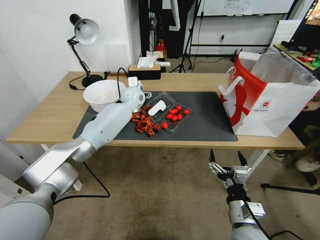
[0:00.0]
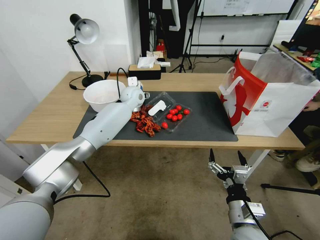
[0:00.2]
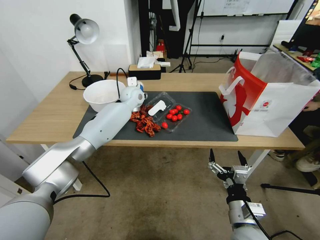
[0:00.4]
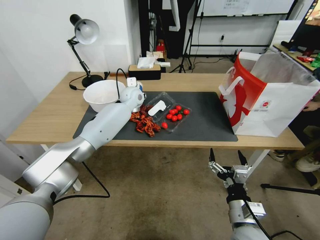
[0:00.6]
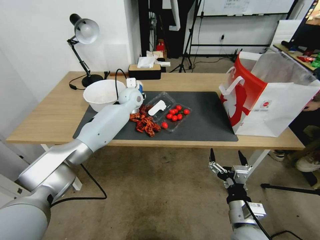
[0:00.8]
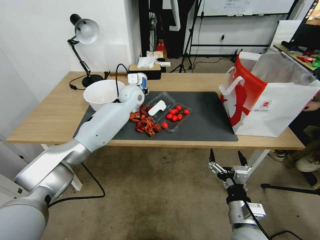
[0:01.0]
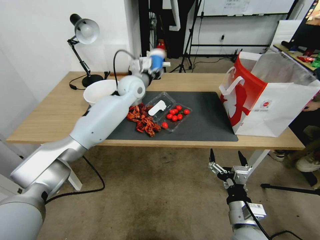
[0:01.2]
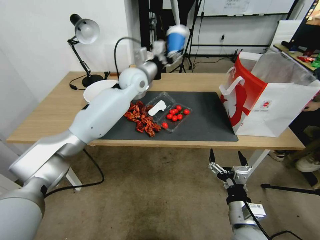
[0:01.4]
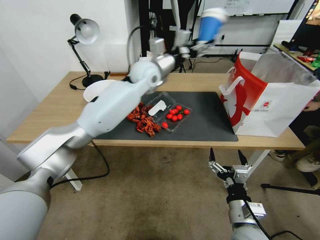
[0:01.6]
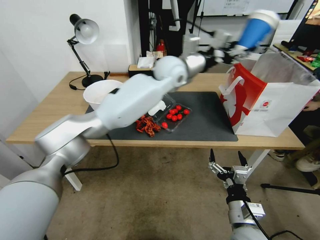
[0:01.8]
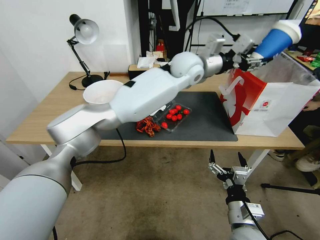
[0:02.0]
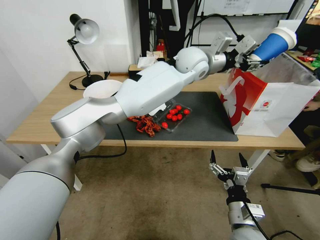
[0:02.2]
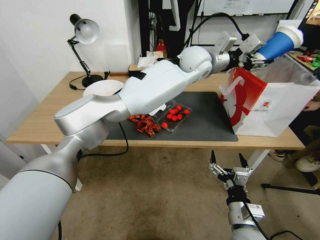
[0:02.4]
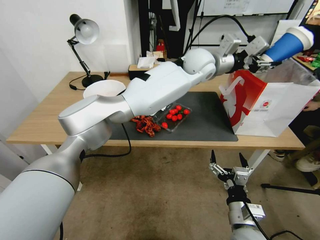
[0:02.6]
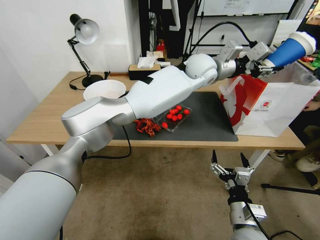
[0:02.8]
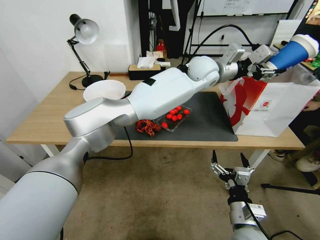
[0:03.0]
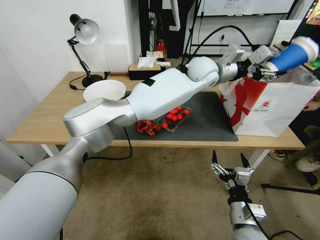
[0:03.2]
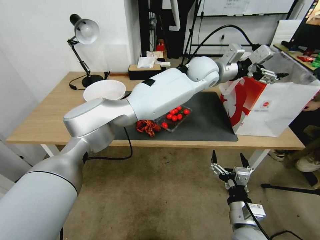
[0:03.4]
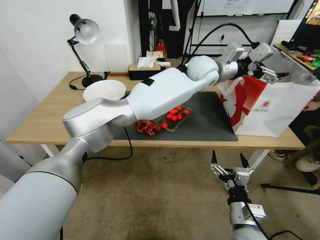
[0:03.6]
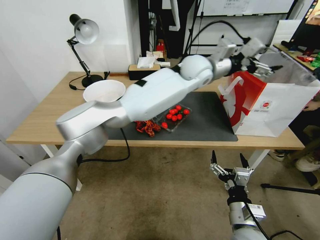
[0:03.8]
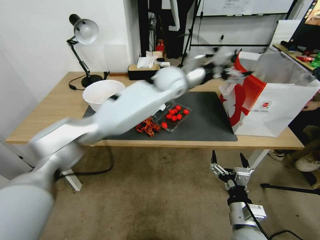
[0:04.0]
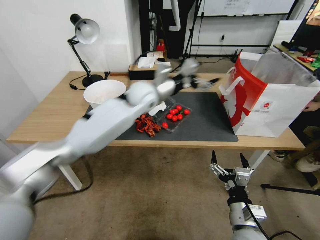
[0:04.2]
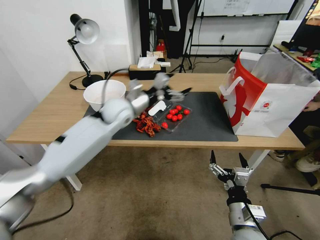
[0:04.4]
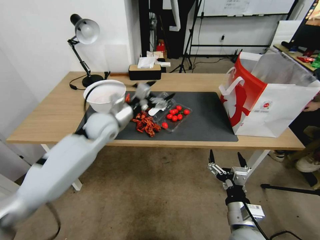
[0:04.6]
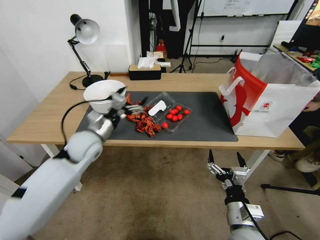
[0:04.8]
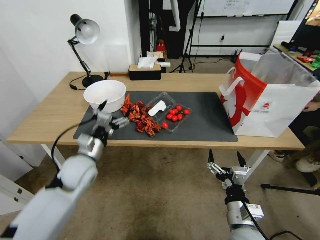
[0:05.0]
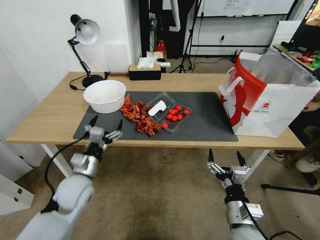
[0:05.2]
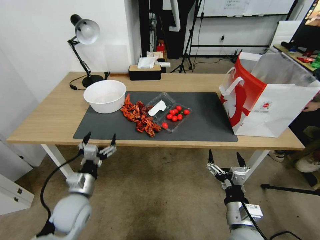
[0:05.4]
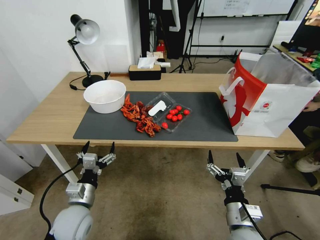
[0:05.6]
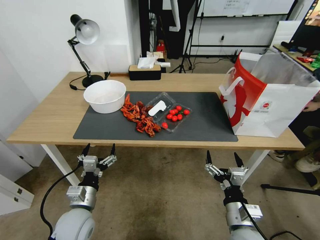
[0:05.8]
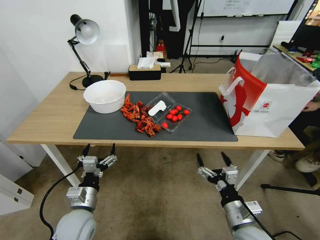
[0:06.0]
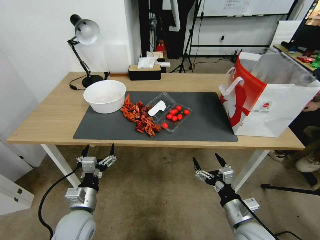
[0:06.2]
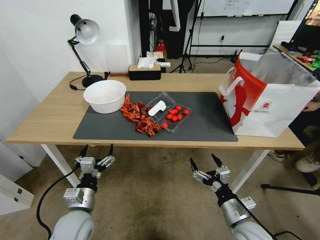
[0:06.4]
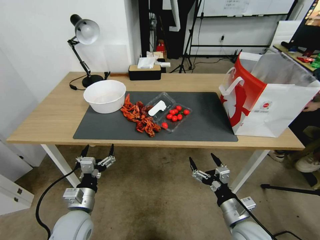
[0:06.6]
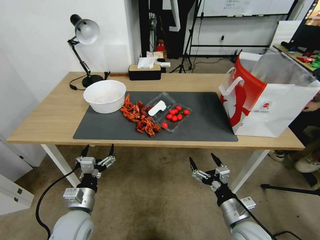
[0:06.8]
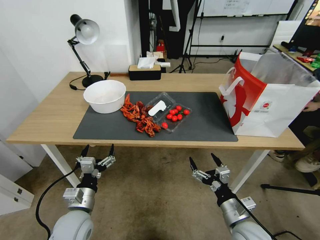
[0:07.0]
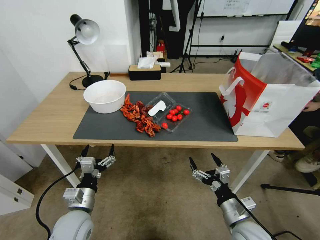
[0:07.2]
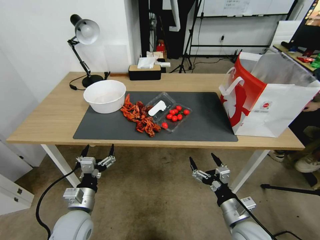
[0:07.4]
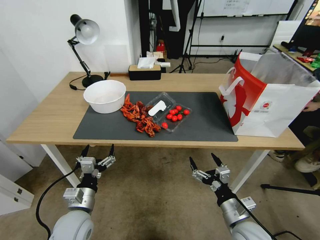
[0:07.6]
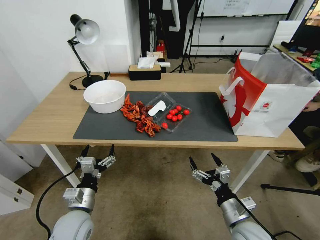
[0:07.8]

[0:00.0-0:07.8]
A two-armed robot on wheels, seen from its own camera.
0.0 to 1.6 s: The left gripper moves upward and to the right, approximately 15 cm, and closes up.
1.6 to 3.2 s: The left gripper moves to the right, approximately 15 cm.
3.2 to 4.6 s: The left gripper is displaced to the left and downward by approximately 35 cm, and opens.
4.6 to 6.2 s: The left gripper heads backward and downward, covering roughly 30 cm.
6.2 to 7.8 s: The two grippers keep their place.

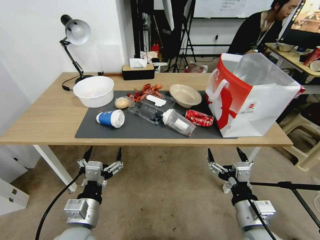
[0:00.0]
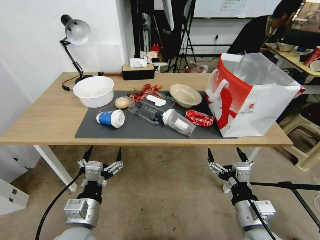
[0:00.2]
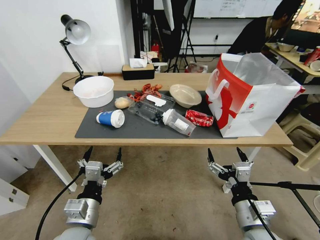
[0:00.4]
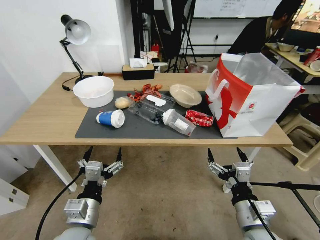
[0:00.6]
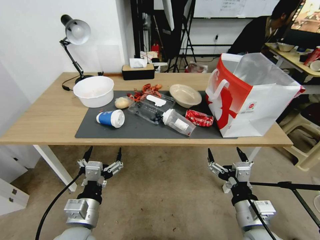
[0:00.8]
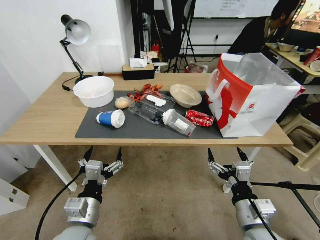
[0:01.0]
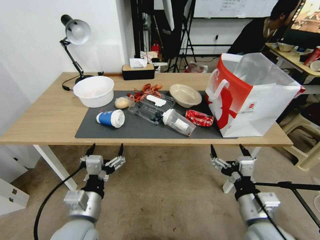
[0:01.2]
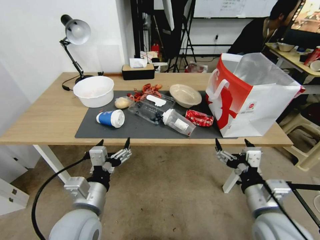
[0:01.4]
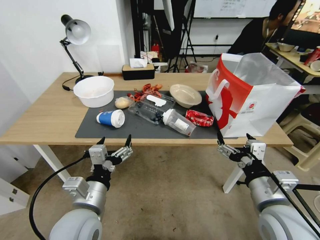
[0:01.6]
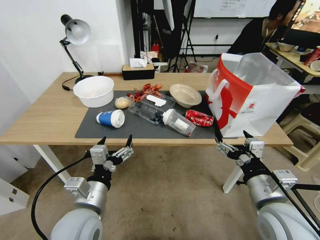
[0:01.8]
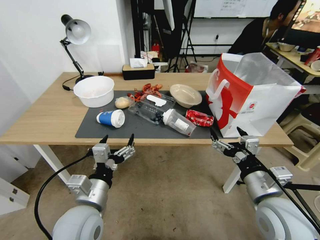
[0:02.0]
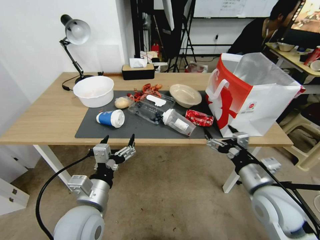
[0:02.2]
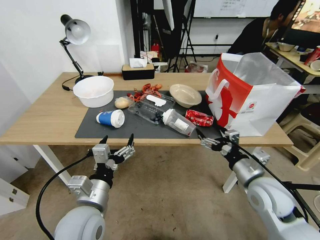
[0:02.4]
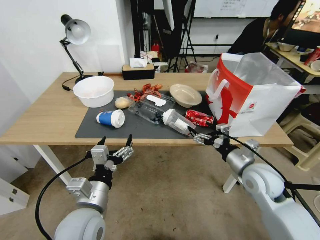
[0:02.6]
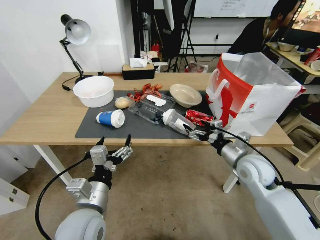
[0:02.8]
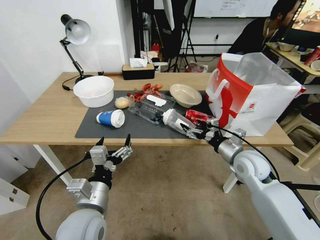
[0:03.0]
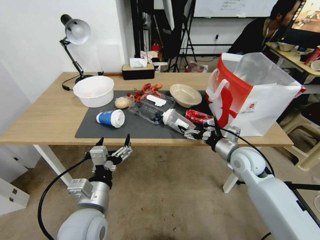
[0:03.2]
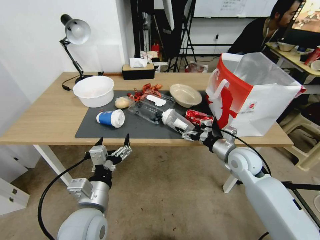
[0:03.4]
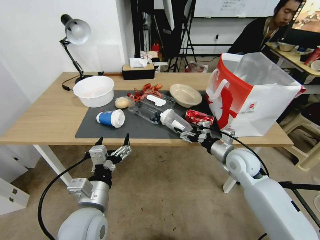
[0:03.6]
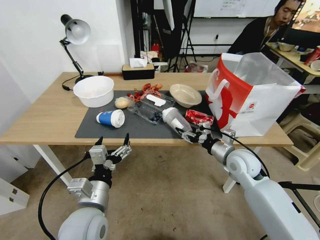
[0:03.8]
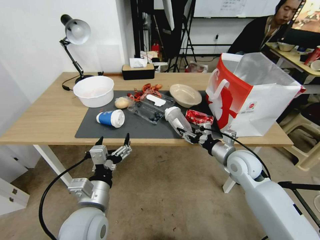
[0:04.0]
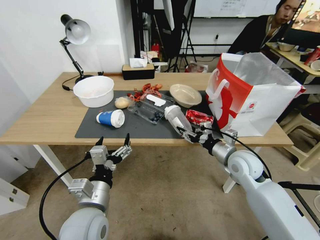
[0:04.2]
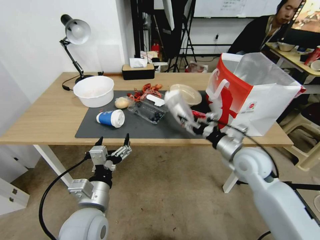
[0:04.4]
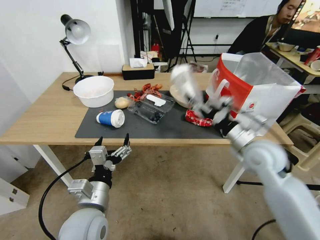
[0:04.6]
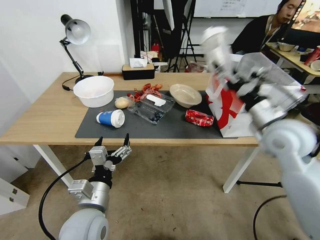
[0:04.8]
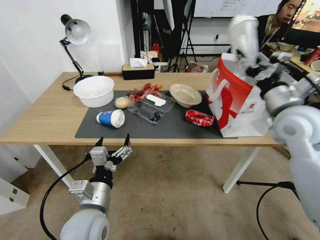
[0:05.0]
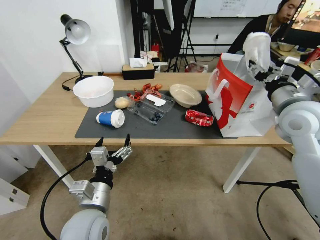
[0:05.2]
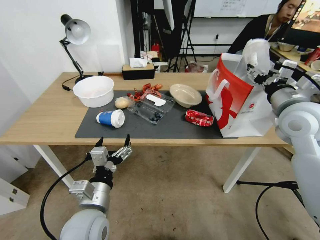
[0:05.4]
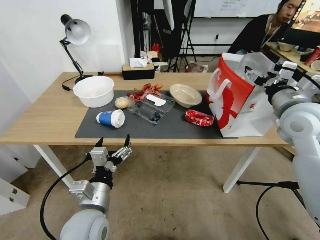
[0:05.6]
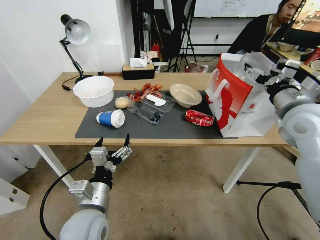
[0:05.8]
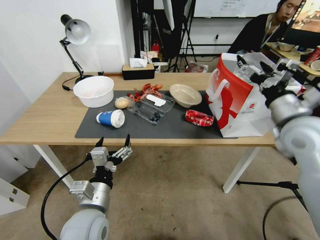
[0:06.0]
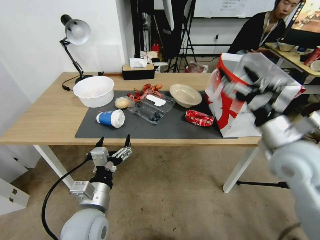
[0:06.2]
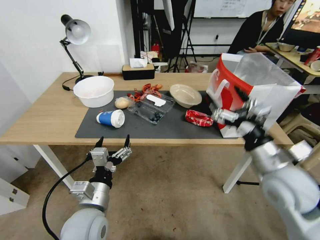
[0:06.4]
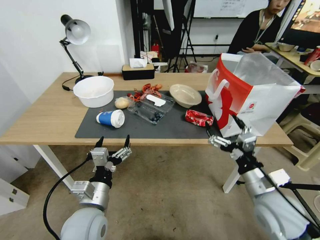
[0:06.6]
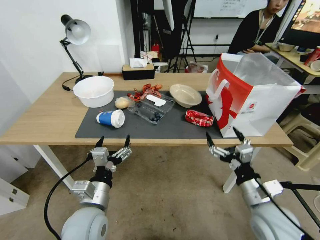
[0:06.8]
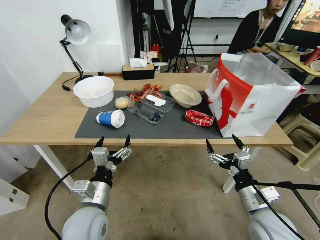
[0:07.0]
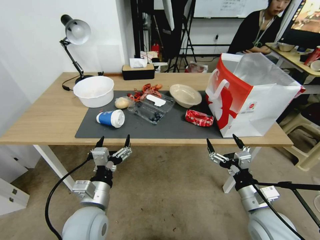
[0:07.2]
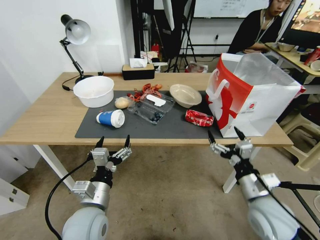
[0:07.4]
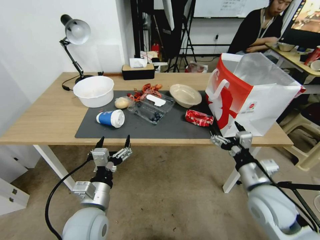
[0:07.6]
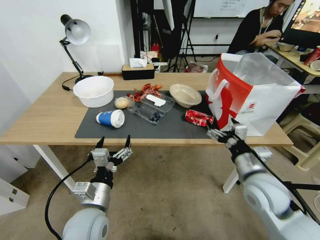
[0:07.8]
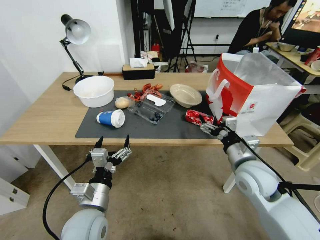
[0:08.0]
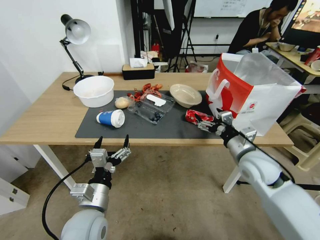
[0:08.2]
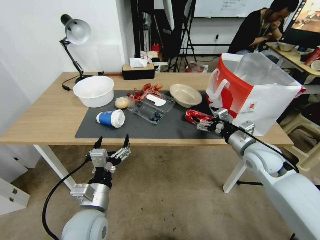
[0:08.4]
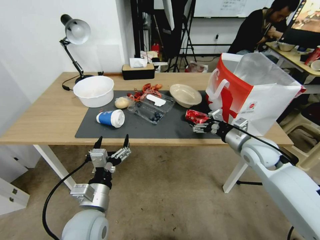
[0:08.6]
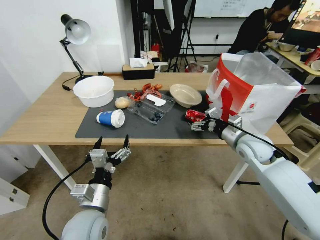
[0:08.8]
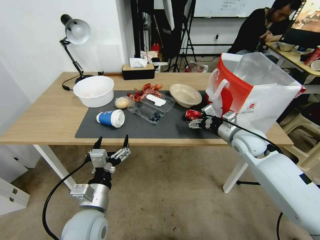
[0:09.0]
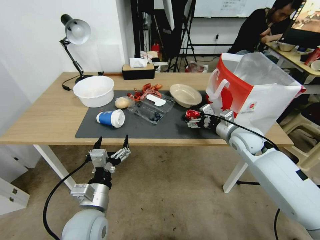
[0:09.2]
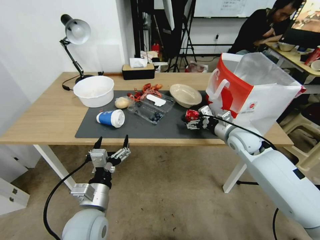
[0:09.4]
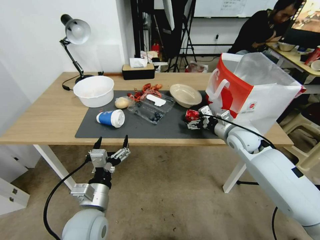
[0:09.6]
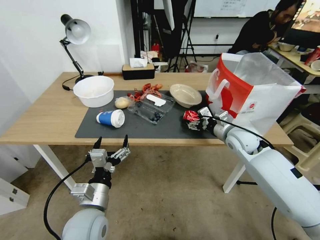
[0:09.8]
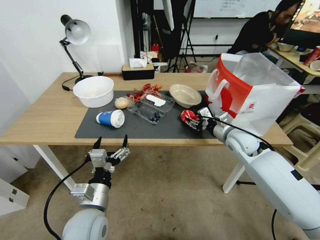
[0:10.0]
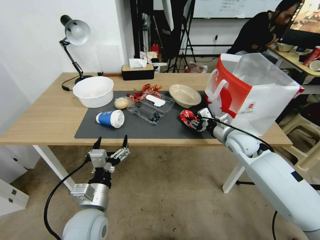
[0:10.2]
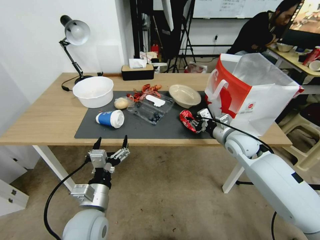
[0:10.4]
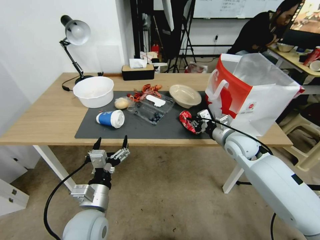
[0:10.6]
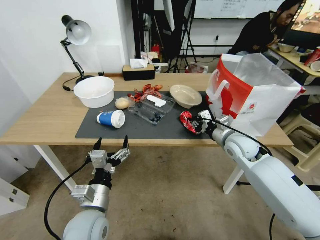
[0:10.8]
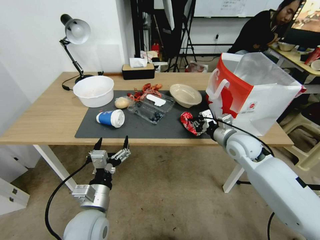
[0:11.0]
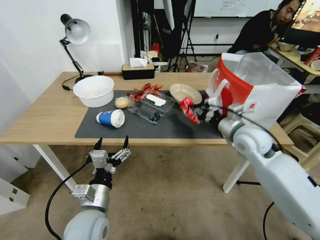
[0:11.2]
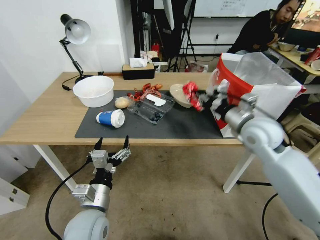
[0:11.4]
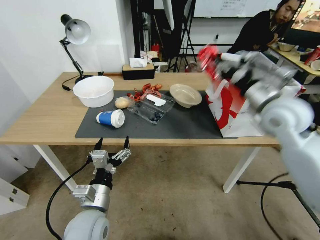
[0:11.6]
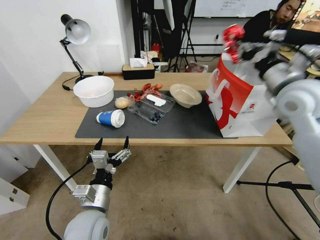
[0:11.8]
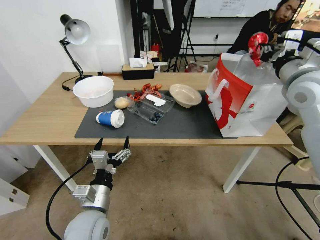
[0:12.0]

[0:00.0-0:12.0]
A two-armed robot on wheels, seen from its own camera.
1.6 to 3.0 s: The right gripper moves forward, some 20 cm.
3.0 to 4.4 s: The right gripper closes up.
4.4 to 6.0 s: The right gripper travels upward by approximately 15 cm, and opens up.
6.0 to 7.6 s: The right gripper heads downward and backward, covering roughly 20 cm.
7.6 to 9.0 s: The right gripper moves forward, roughly 20 cm.
9.0 to 10.4 s: The right gripper closes up.
10.4 to 12.0 s: The right gripper heads upward, covering some 25 cm.

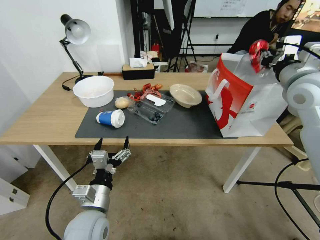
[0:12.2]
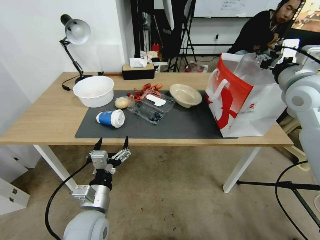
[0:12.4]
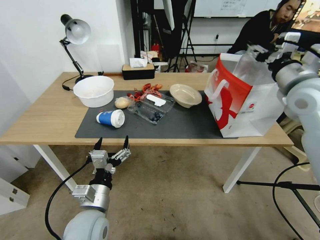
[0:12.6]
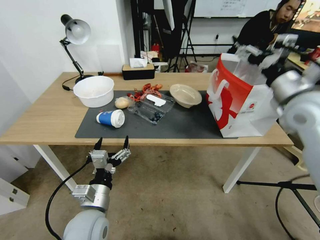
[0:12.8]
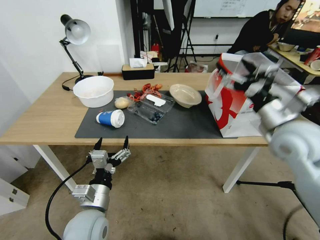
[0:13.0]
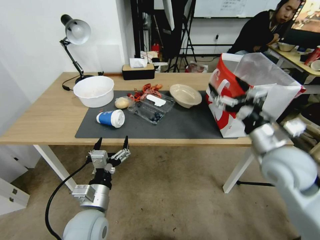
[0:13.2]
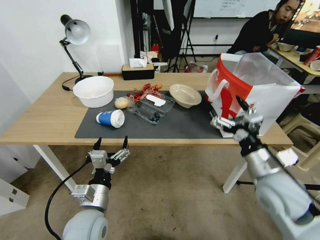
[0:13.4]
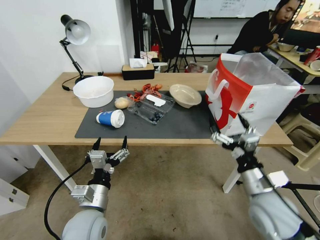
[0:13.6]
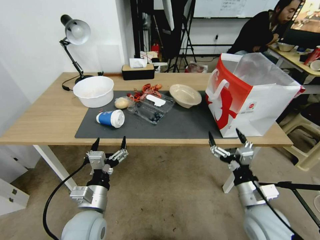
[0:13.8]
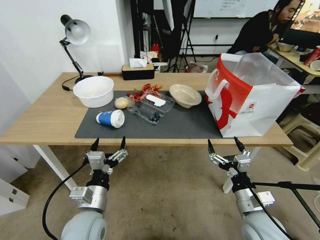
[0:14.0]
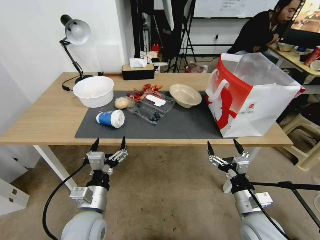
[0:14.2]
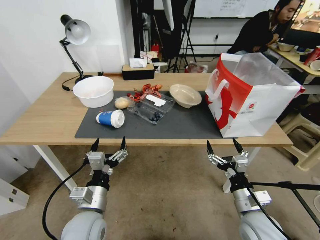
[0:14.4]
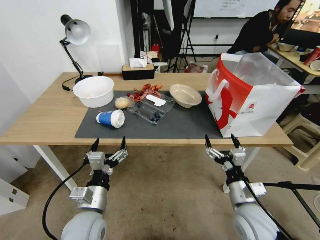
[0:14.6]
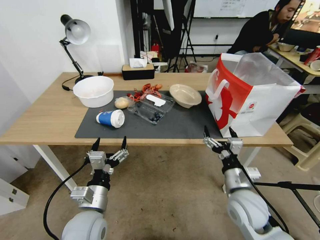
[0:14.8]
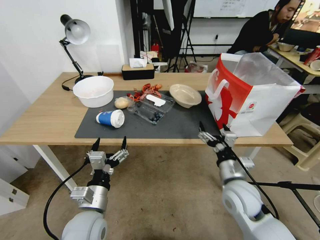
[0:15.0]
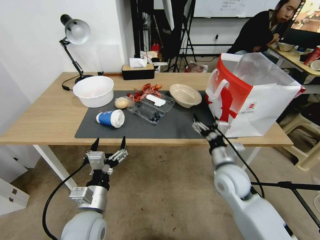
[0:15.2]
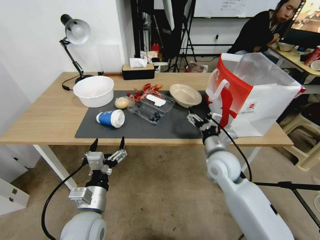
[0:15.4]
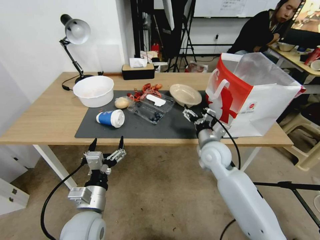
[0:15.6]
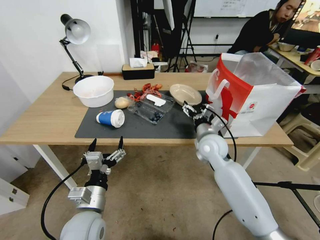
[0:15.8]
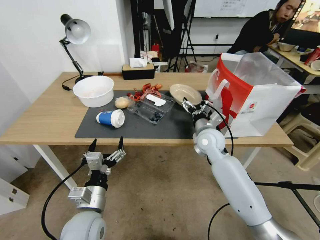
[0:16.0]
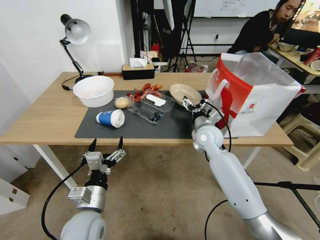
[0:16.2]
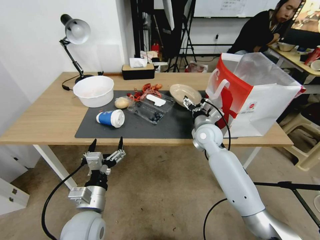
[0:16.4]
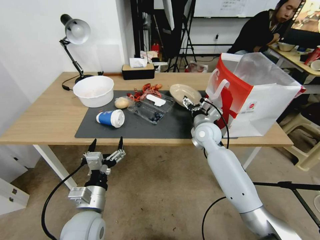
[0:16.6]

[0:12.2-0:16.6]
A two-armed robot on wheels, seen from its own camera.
12.2 to 13.6 s: The right gripper goes about 30 cm downward and backward, and opens its fingers.
13.6 to 15.2 s: The right gripper travels forward and to the left by approximately 10 cm.
15.2 to 16.6 s: The right gripper moves forward, some 15 cm.
